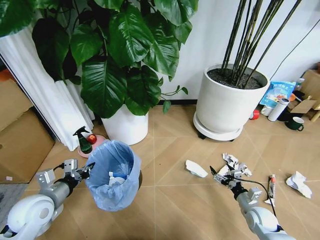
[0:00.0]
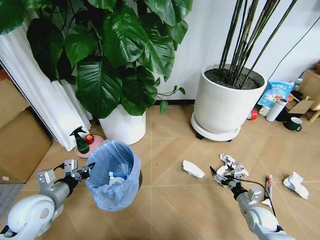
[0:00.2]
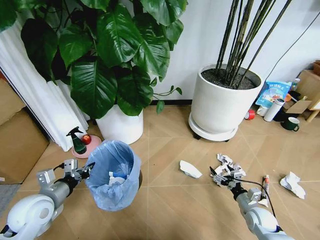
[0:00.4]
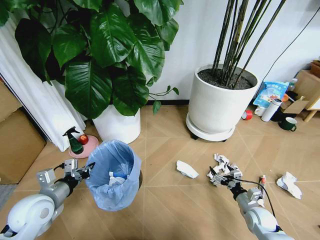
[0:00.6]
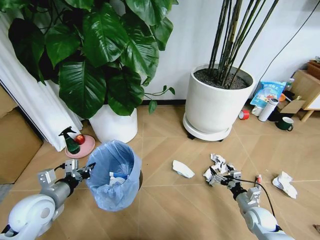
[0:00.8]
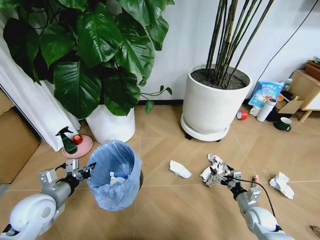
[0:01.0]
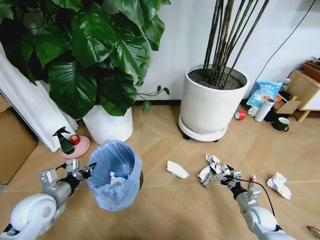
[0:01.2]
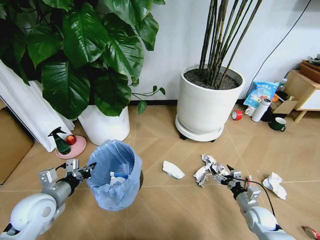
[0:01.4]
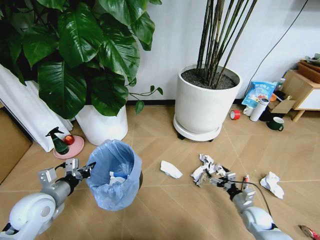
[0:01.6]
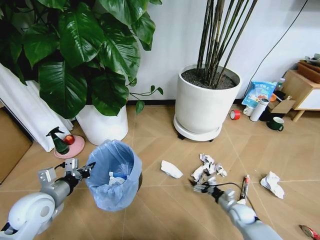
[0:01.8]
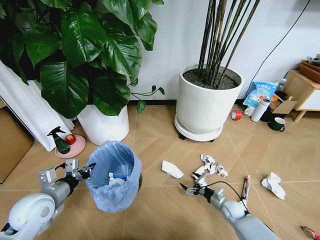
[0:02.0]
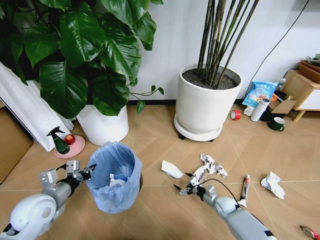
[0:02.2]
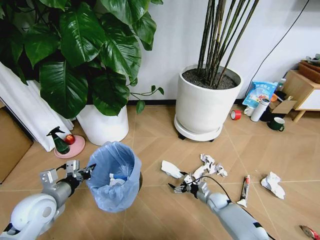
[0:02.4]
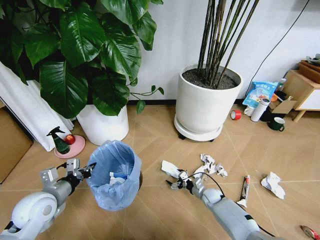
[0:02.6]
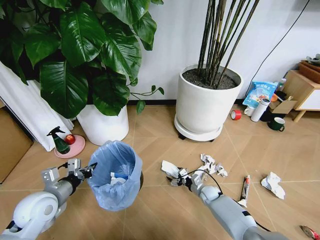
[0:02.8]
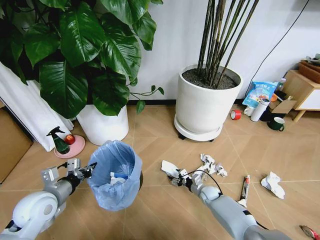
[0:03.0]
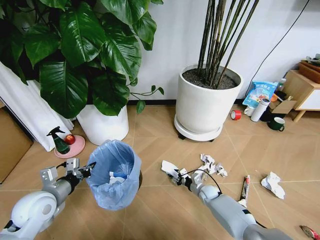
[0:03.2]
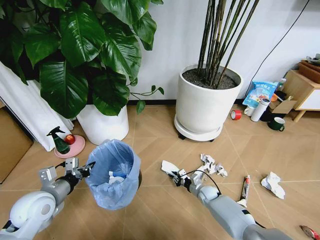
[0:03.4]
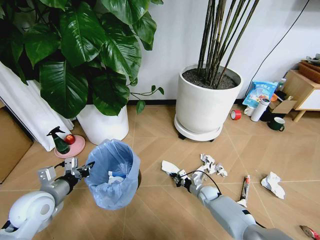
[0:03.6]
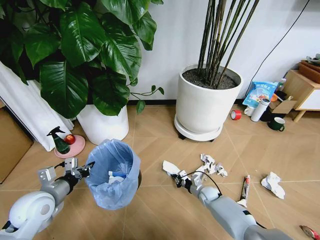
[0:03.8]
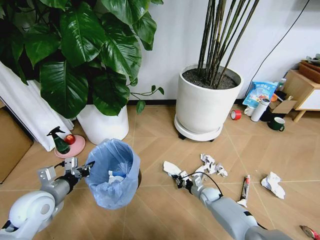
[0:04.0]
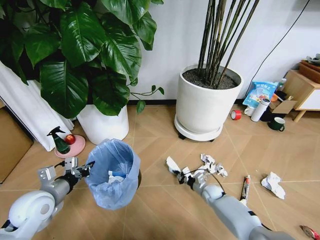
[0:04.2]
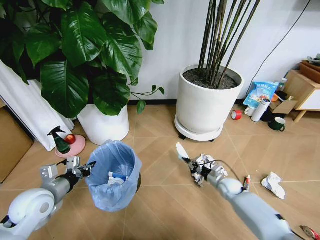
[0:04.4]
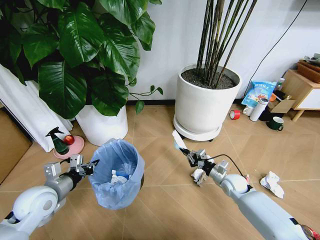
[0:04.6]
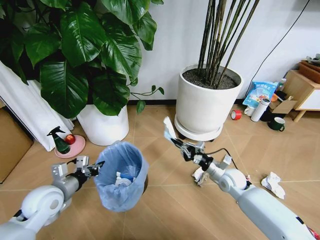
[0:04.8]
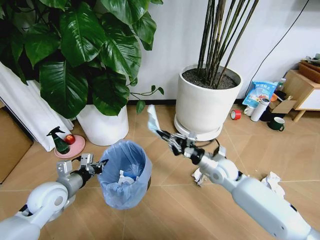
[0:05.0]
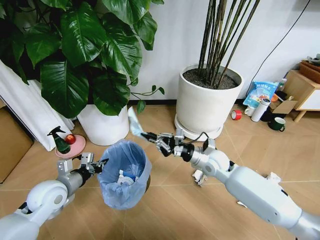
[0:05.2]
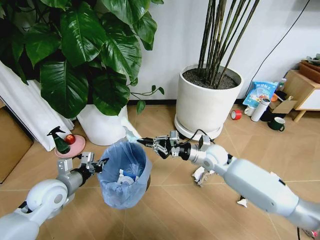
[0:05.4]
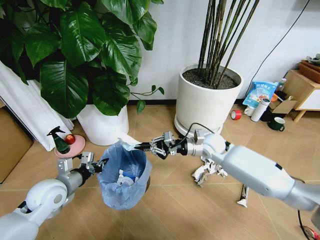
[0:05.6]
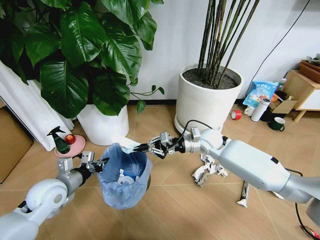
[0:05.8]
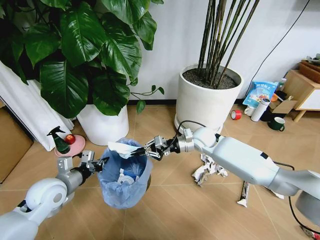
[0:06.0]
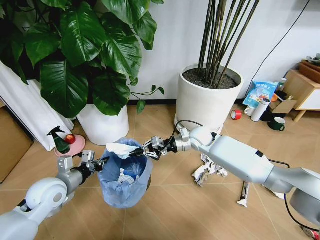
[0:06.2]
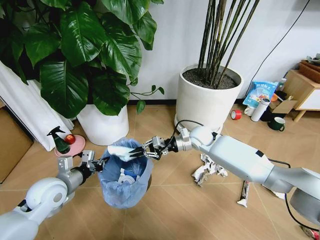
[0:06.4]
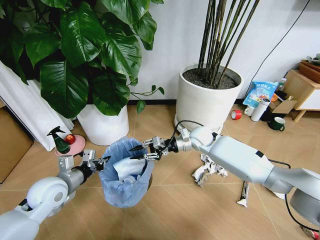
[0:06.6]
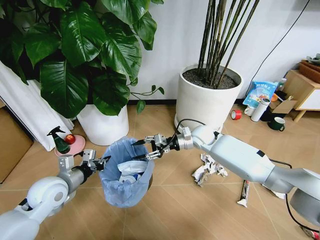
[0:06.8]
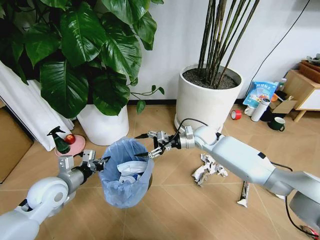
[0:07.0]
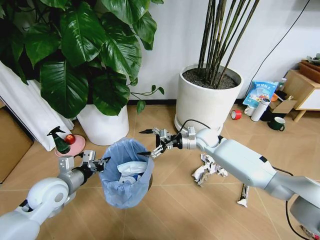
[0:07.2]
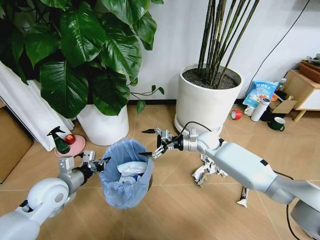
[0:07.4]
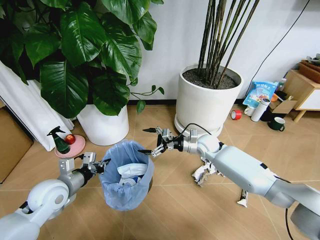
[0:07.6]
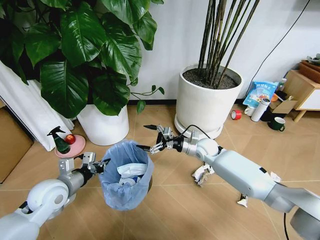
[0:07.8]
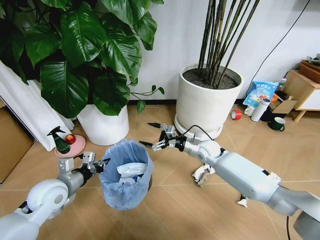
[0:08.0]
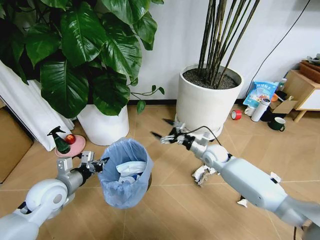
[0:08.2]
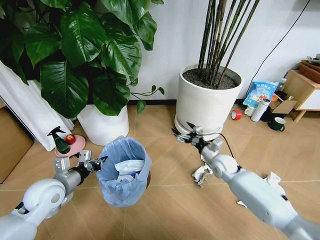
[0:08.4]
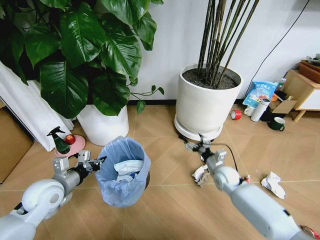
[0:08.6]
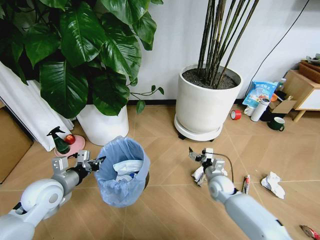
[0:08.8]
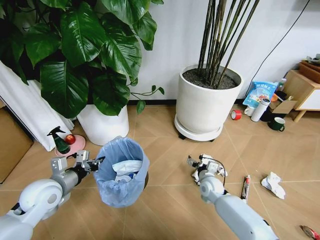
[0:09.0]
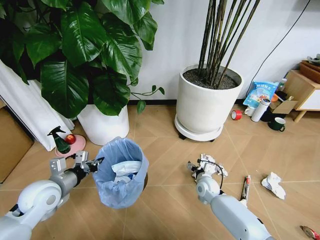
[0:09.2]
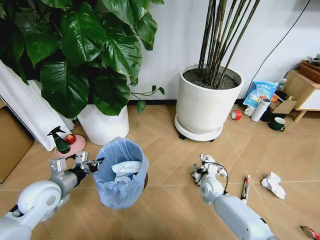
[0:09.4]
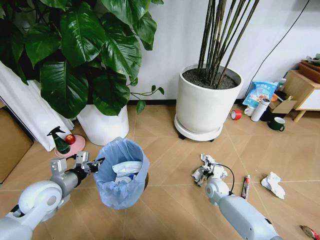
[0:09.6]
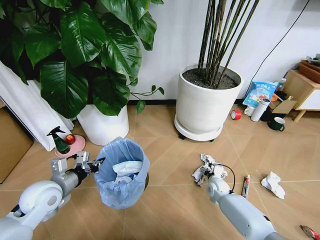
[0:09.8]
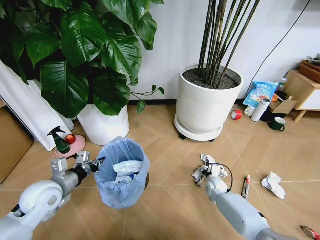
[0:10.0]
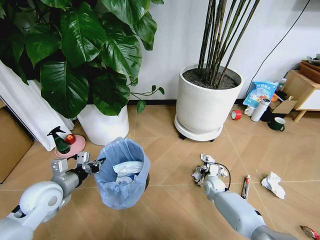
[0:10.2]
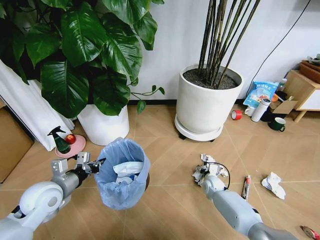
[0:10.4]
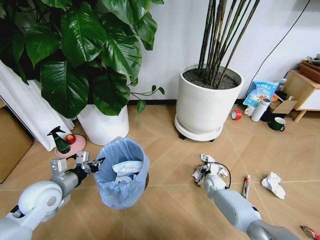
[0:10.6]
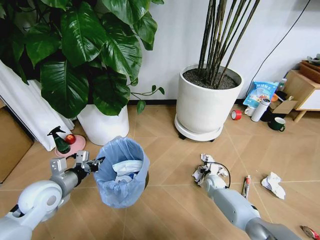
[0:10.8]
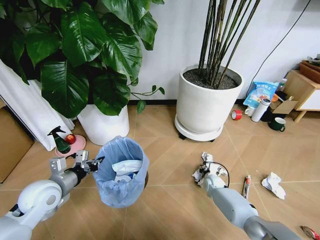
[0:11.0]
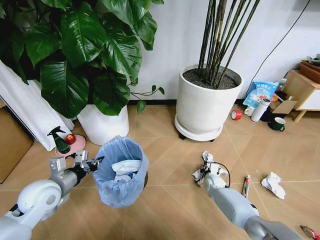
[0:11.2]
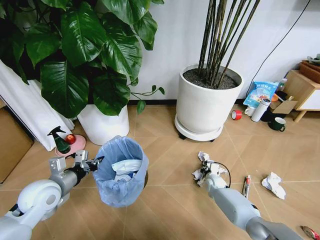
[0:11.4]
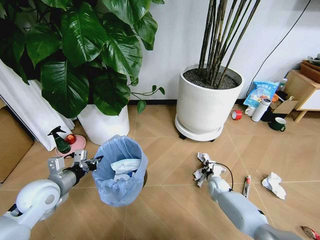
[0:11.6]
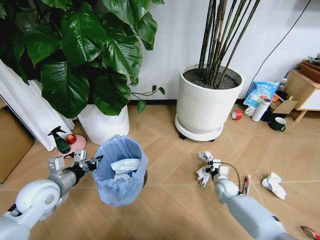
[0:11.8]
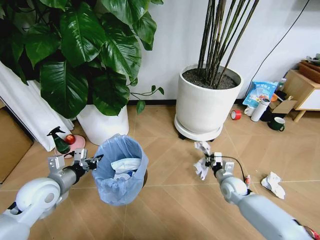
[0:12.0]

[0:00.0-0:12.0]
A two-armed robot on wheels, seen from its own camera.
Task of the whole recording: Pick up the trash bin and place the garbage on the floor into it.
0:01.6 to 0:03.0: The right gripper moves to the left, forward and downward, some 20 cm.
0:03.0 to 0:04.4: The right gripper moves to the right and upward, some 10 cm, and closes its fingers.
0:04.4 to 0:06.0: The right gripper goes roughly 30 cm upward, to the left and forward.
0:06.0 to 0:07.6: The right gripper changes place by about 5 cm, and opens its fingers.
0:07.6 to 0:09.0: The right gripper moves downward and backward, approximately 20 cm.
0:09.0 to 0:10.4: The right gripper goes roughly 5 cm downward.
0:10.4 to 0:12.0: The right gripper travels upward and to the right by some 10 cm, and closes up.

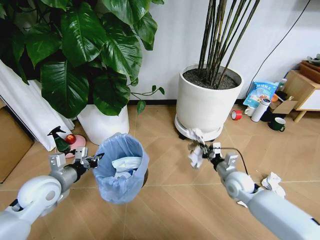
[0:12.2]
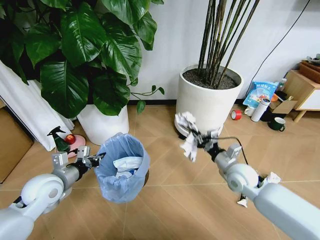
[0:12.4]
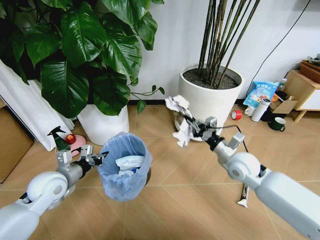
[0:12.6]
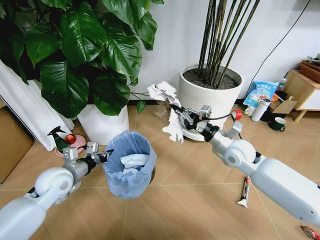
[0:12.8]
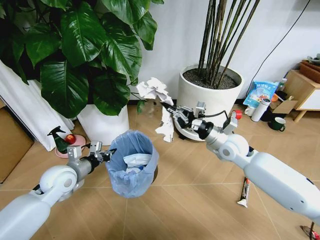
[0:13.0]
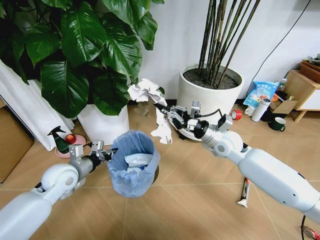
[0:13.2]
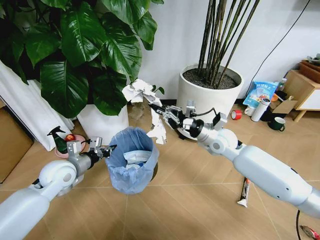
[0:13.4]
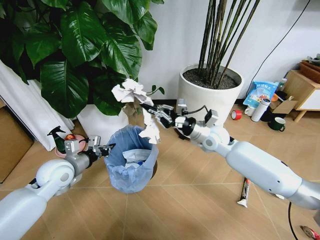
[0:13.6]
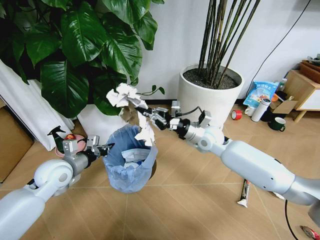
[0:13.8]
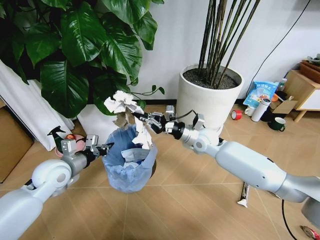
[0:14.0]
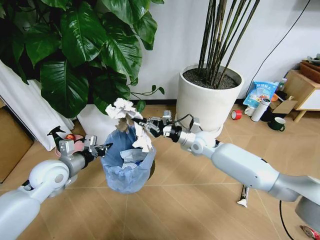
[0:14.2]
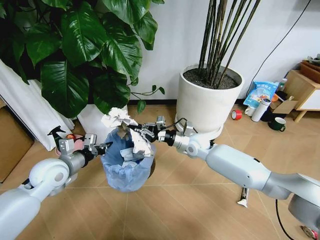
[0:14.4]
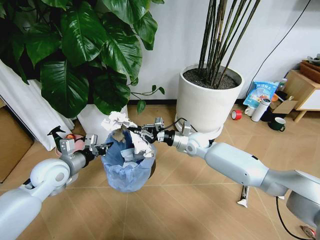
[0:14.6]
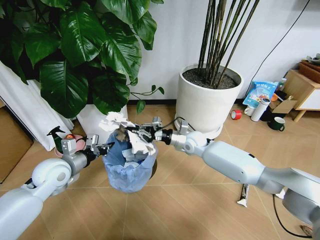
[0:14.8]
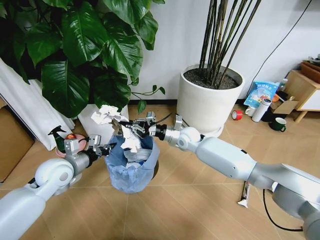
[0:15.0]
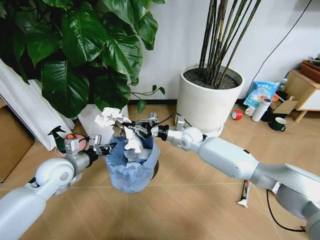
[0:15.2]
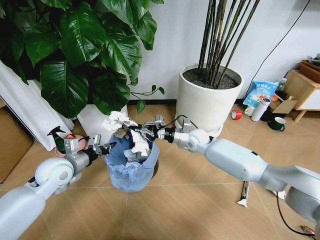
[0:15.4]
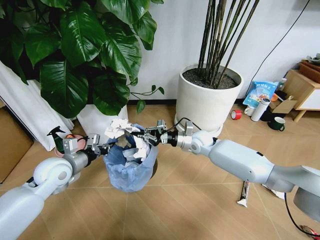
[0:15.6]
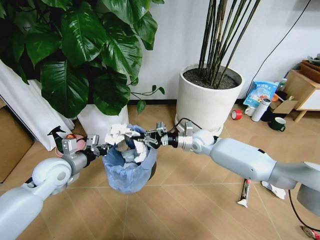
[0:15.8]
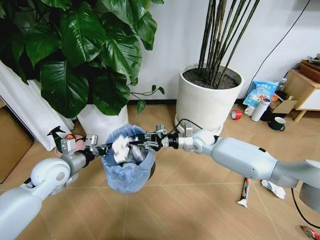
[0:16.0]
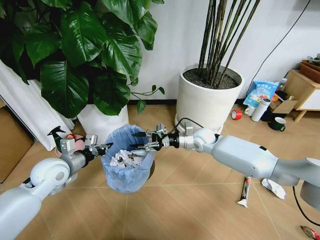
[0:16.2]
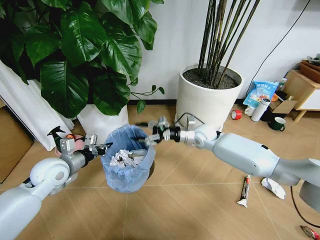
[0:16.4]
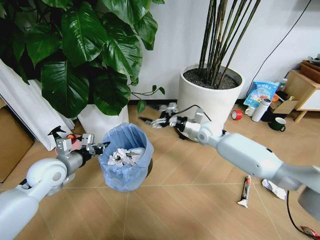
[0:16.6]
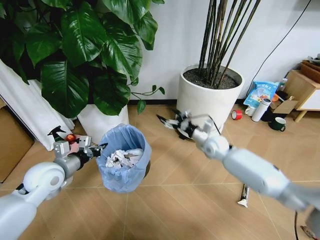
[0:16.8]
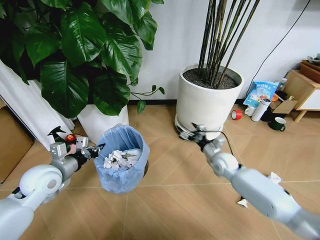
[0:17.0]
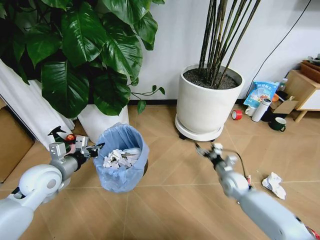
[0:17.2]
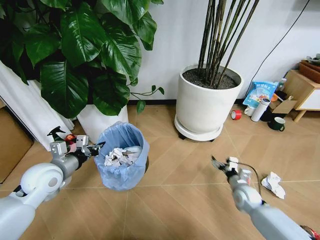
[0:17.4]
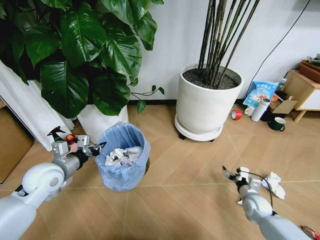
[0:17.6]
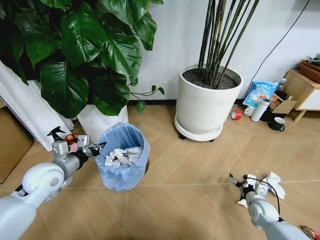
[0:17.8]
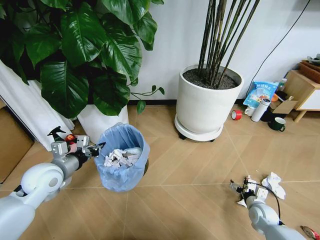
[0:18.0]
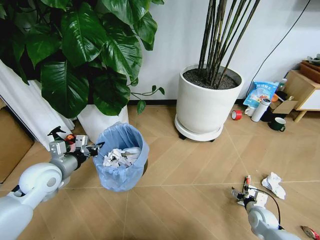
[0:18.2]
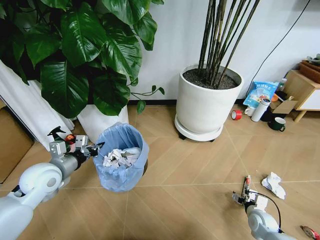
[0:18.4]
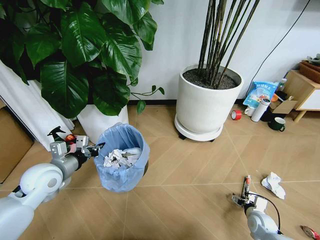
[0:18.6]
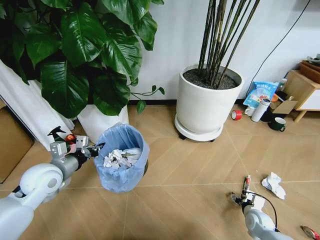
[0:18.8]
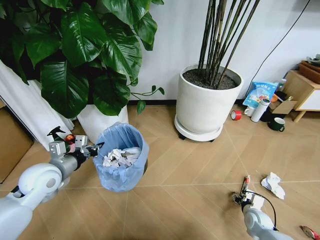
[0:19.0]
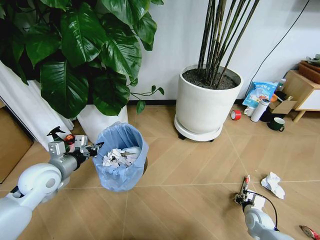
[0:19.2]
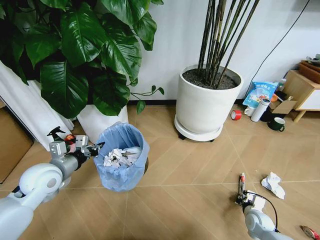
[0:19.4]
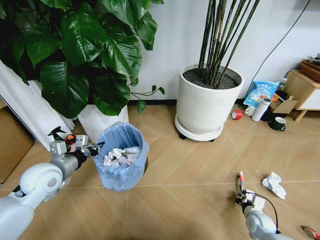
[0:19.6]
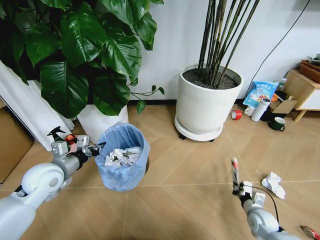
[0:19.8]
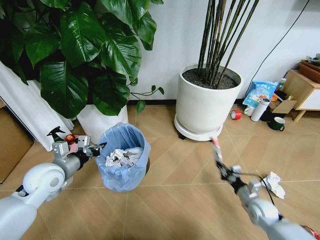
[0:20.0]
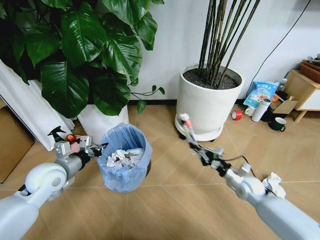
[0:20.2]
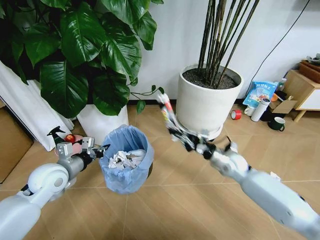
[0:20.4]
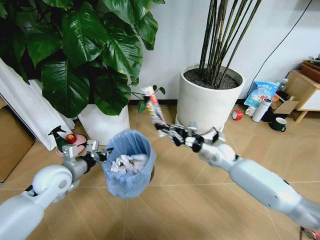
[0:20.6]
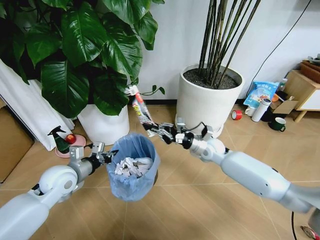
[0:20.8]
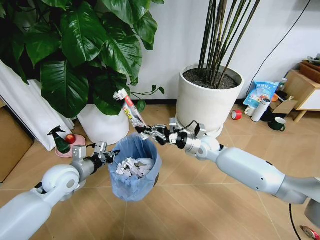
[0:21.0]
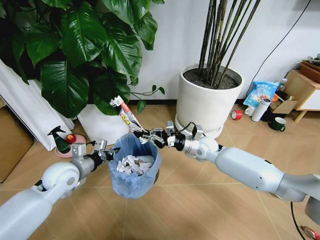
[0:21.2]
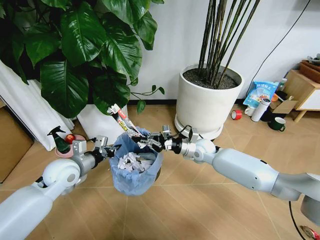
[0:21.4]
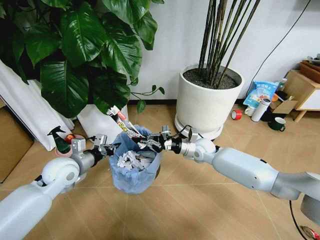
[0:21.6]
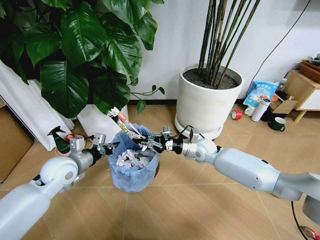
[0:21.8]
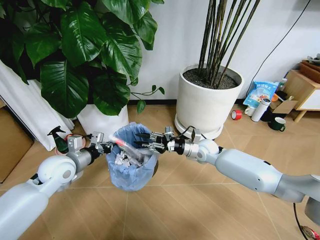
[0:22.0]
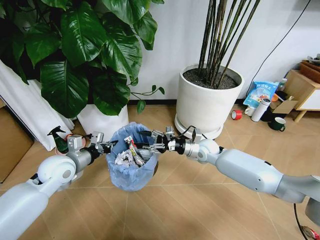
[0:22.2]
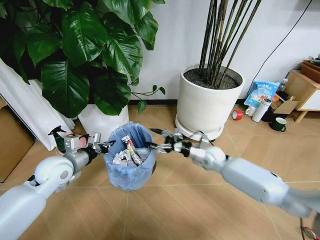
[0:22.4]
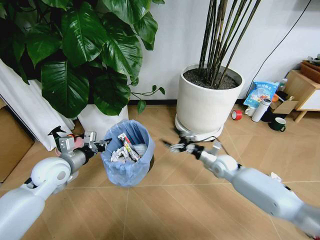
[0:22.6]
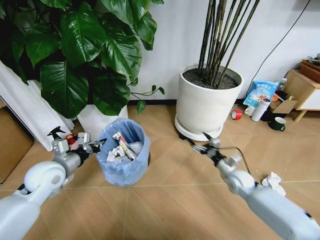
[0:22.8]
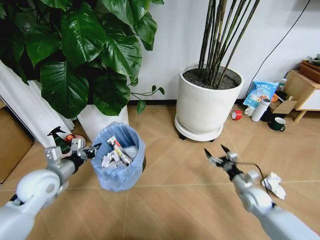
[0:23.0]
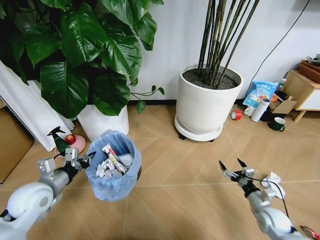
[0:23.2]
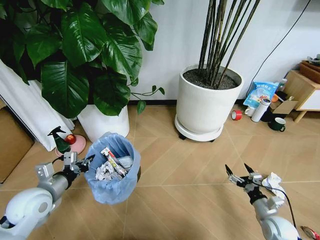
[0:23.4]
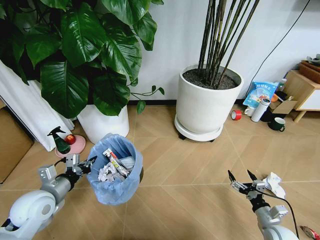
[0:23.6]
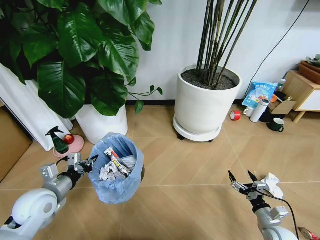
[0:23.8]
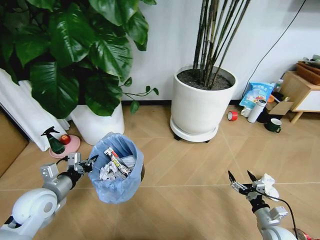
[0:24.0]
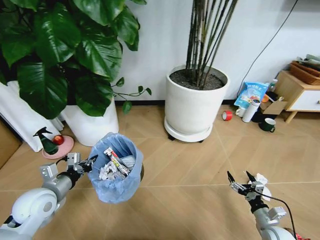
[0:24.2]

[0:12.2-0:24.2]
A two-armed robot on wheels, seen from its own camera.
Task of the whole recording: Pick up the trash bin and place the garbage on the floor into it.
0:12.2 to 0:13.8: The left gripper heads forward, covering some 5 cm; the right gripper heads upward, to the left and forward, covering roughly 20 cm.
0:13.8 to 0:15.2: The right gripper travels downward and forward by roughly 10 cm.
0:15.2 to 0:16.6: The right gripper shifts approximately 5 cm to the right, and opens up.
0:16.6 to 0:18.2: The right gripper heads backward, downward and to the right, covering about 40 cm.
0:18.2 to 0:19.8: The right gripper closes.
0:19.8 to 0:21.2: The right gripper travels forward, to the left and upward by about 35 cm.
0:21.2 to 0:22.6: The right gripper goes approximately 15 cm to the right, downward and backward, and opens its fingers.
0:22.6 to 0:24.2: The right gripper travels backward, to the right and downward by about 30 cm. Meanwhile the left gripper shifts some 10 cm backward.
